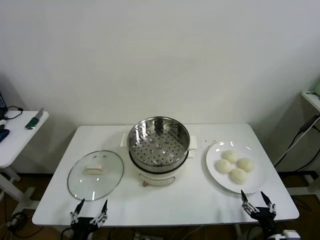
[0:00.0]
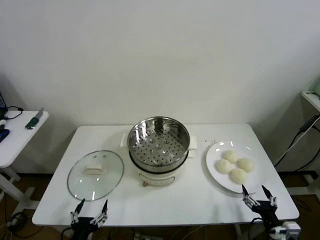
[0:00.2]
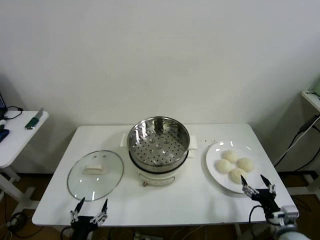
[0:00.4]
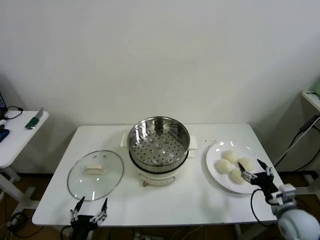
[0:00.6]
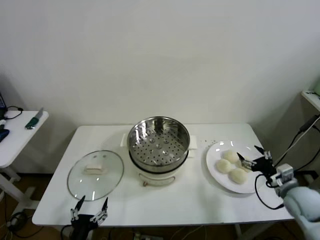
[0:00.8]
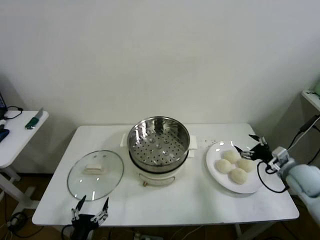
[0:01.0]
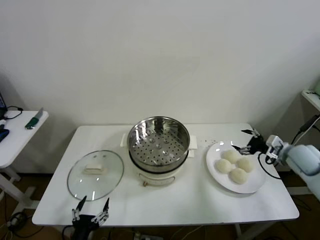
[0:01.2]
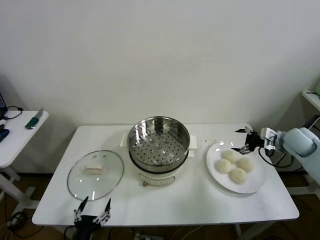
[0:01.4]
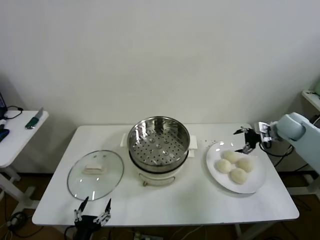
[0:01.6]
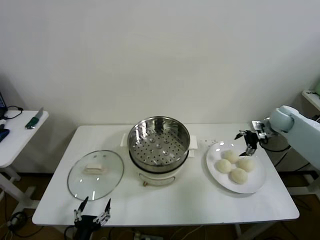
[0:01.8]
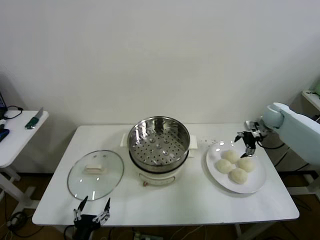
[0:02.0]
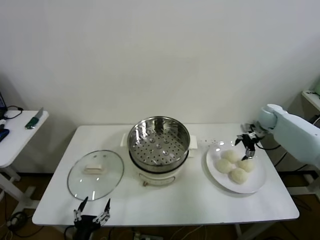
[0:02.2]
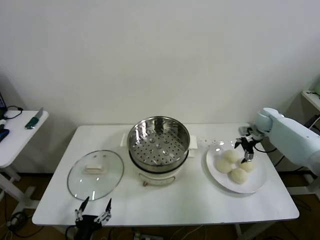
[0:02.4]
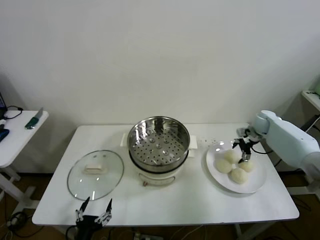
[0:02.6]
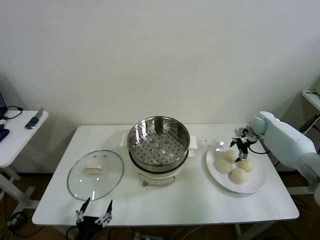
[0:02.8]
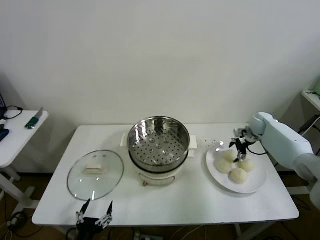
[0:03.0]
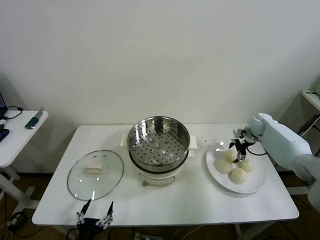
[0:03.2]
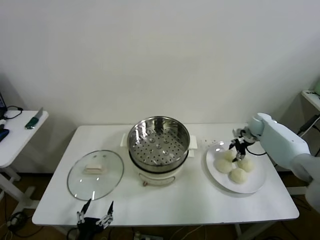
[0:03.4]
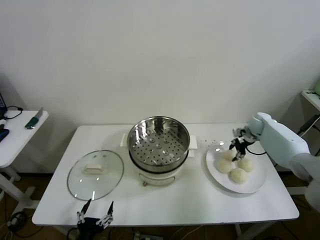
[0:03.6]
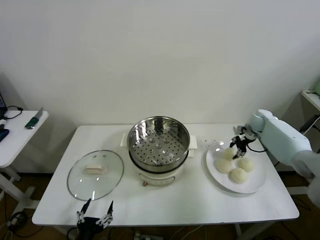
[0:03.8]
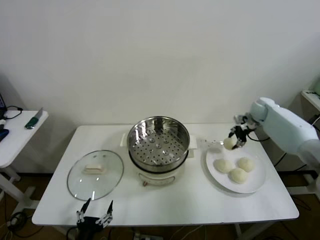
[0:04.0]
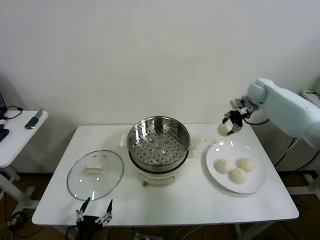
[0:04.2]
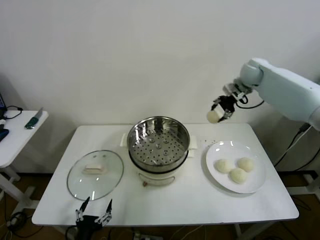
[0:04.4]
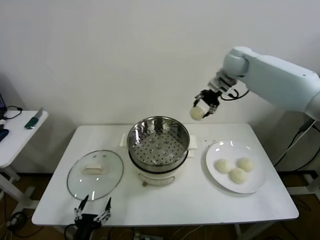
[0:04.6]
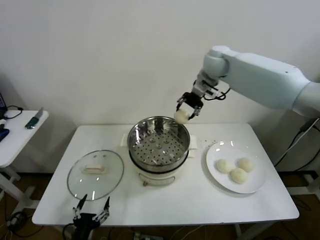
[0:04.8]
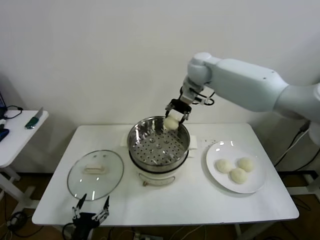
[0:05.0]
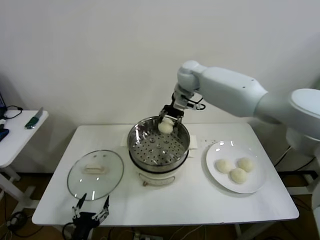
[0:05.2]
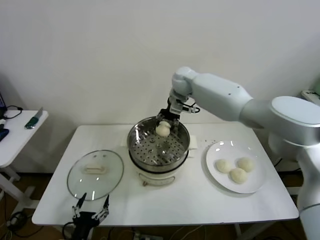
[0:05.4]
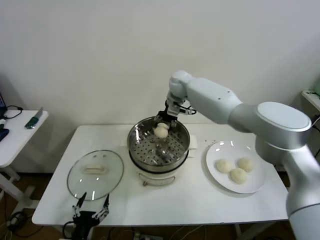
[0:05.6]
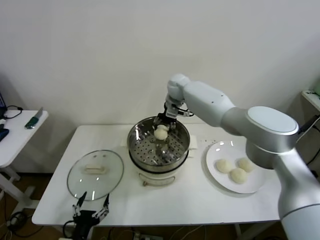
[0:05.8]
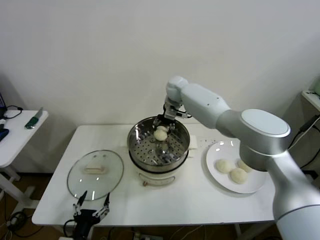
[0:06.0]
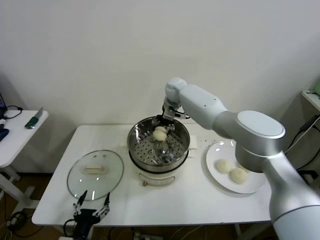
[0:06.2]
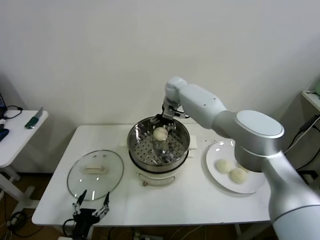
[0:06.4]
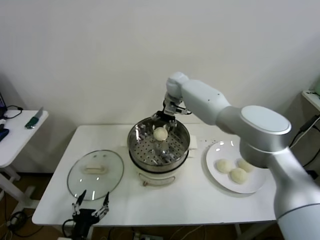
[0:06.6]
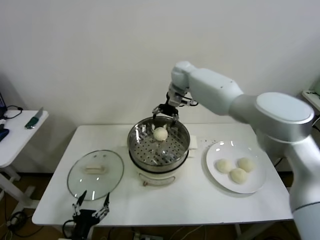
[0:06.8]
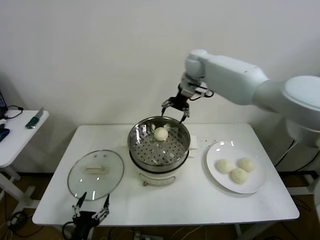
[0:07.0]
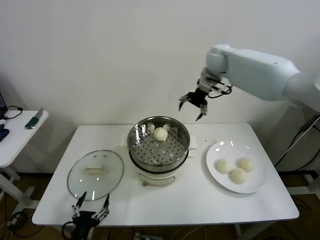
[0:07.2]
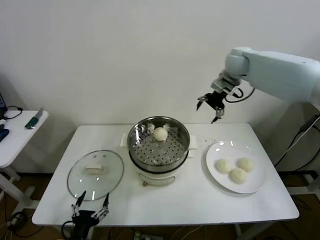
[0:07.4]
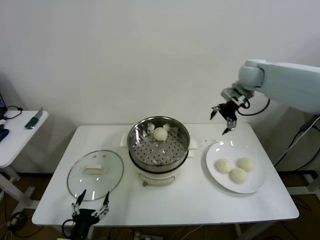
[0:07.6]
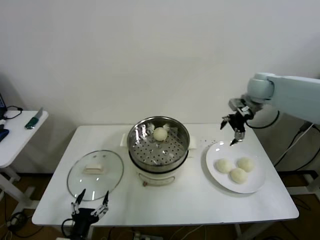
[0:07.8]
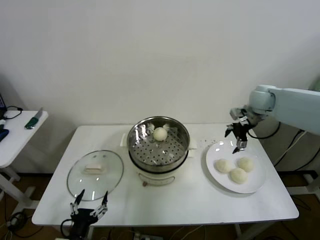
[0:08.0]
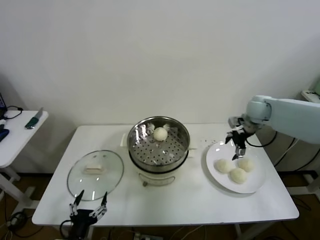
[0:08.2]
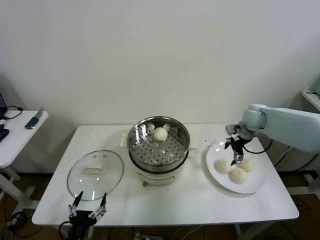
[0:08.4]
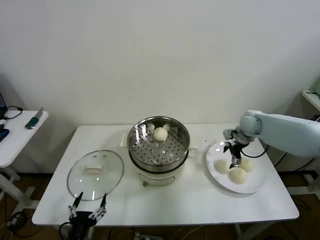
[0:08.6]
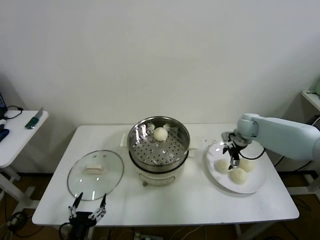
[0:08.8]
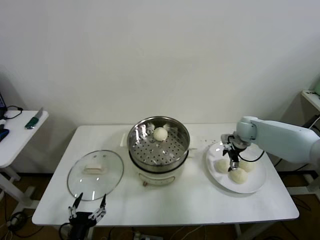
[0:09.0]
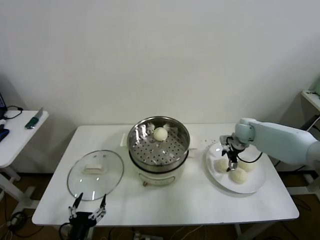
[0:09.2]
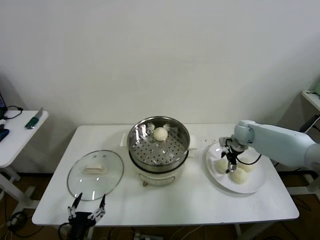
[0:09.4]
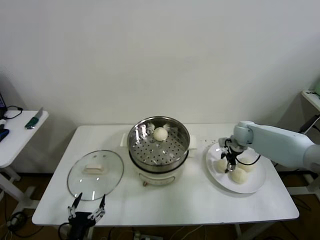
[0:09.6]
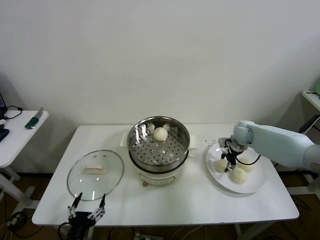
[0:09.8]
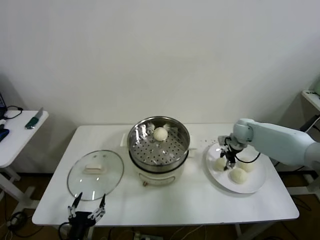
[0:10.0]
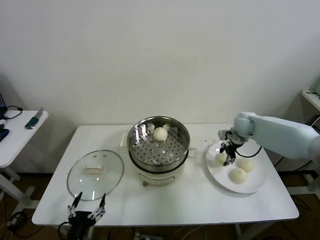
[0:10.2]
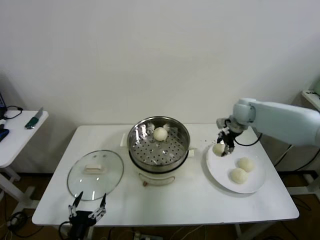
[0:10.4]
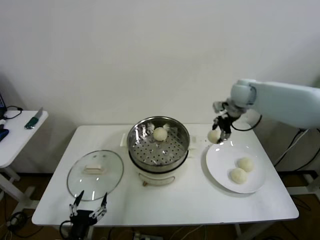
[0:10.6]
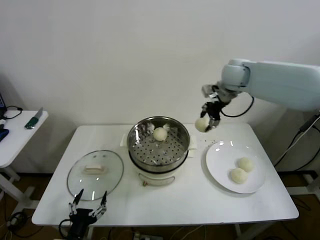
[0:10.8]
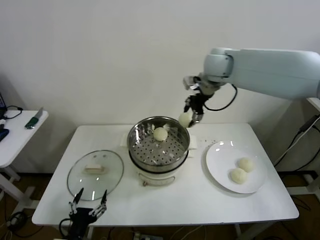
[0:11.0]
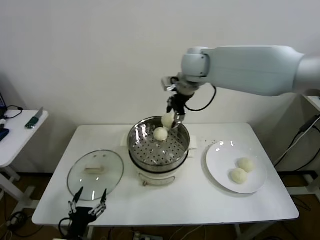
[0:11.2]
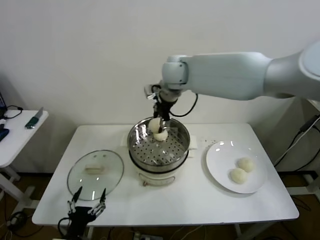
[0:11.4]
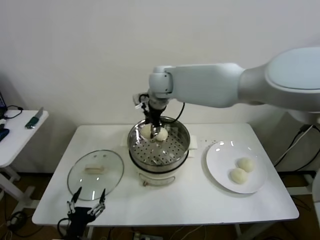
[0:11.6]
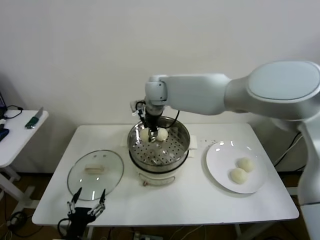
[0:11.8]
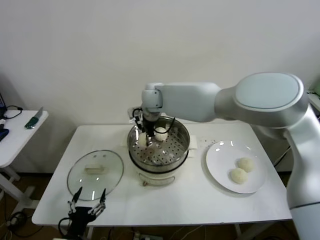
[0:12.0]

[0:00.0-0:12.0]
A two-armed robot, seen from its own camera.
Step, 0:00.0 to 0:03.2: Grasp the baozi in the plate with right gripper.
Step, 0:03.6 to 0:06.2: Place the baozi on the steamer with right gripper.
Step, 0:06.4 to 0:09.4: Grasp the baozi in the plate with right gripper.
0:01.6 to 0:03.0: The right gripper travels forward and downward by roughly 10 cm.
0:03.0 to 0:04.4: The right gripper heads upward and to the left, covering some 25 cm, and closes.
0:04.4 to 0:06.0: The right gripper heads to the left, covering roughly 25 cm.
0:06.0 to 0:07.6: The right gripper moves to the right, about 25 cm, and opens.
0:07.6 to 0:09.0: The right gripper heads downward, covering approximately 20 cm.
0:09.0 to 0:10.4: The right gripper goes about 10 cm upward, and closes up.
0:10.4 to 0:12.0: The right gripper heads to the left, covering about 35 cm.

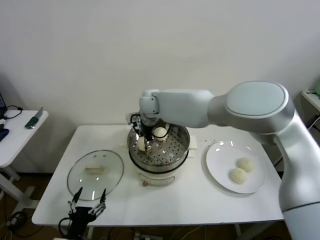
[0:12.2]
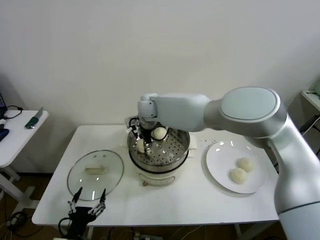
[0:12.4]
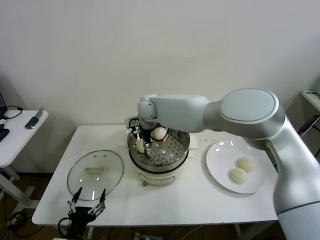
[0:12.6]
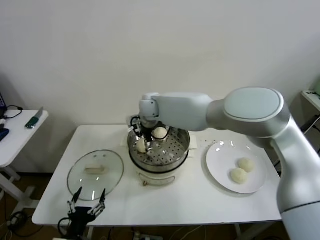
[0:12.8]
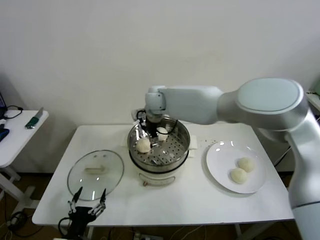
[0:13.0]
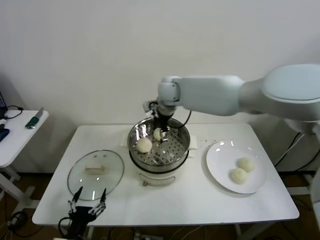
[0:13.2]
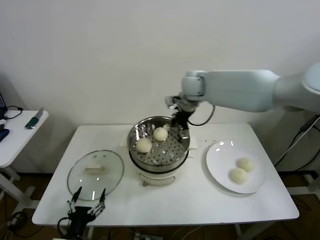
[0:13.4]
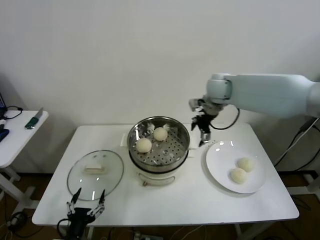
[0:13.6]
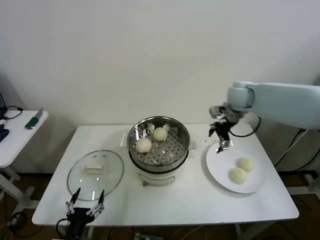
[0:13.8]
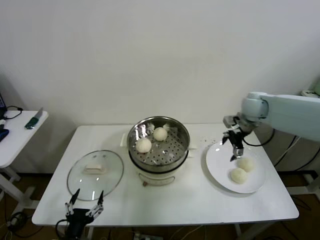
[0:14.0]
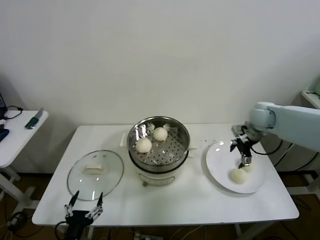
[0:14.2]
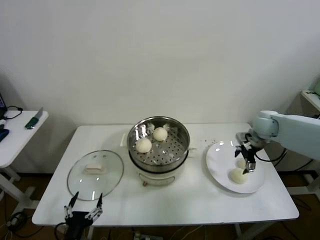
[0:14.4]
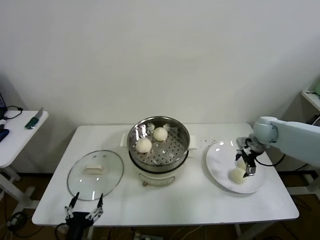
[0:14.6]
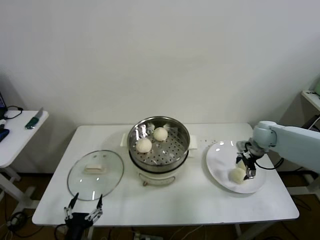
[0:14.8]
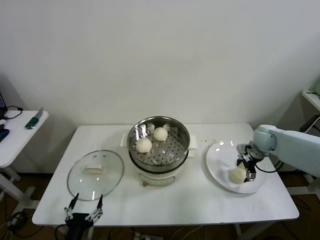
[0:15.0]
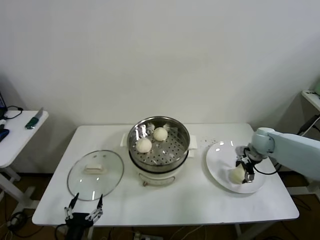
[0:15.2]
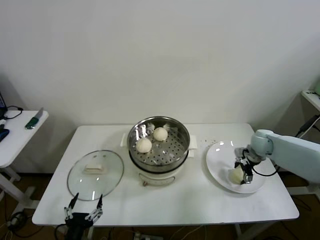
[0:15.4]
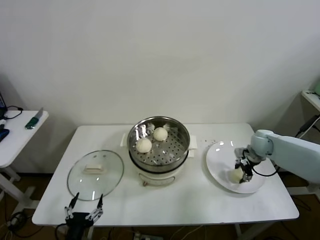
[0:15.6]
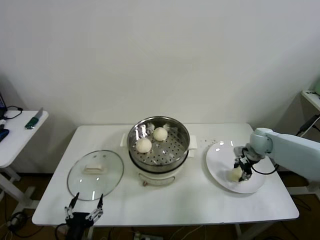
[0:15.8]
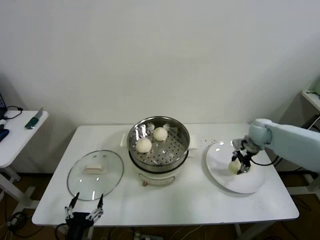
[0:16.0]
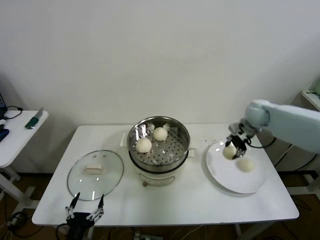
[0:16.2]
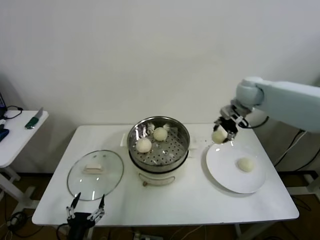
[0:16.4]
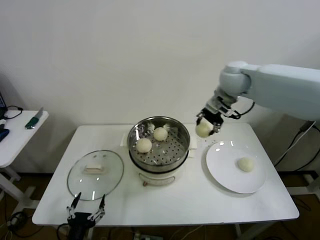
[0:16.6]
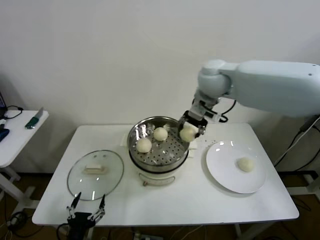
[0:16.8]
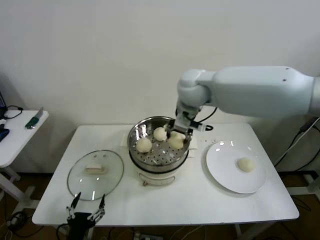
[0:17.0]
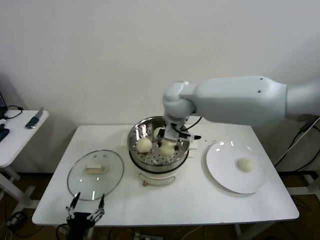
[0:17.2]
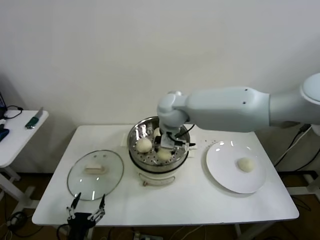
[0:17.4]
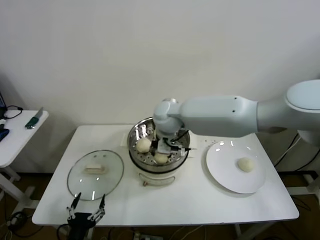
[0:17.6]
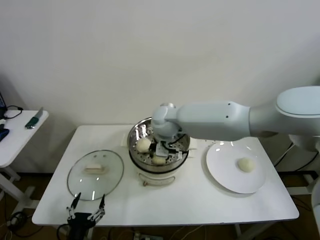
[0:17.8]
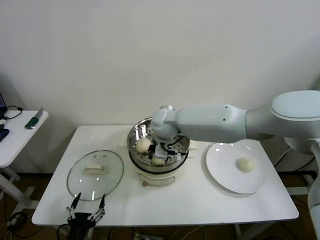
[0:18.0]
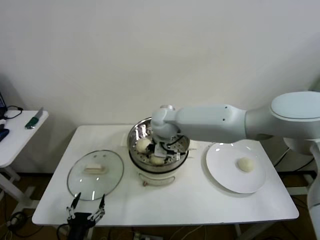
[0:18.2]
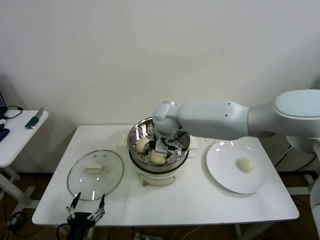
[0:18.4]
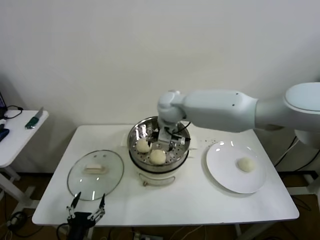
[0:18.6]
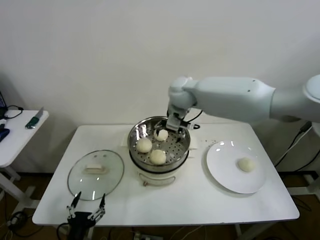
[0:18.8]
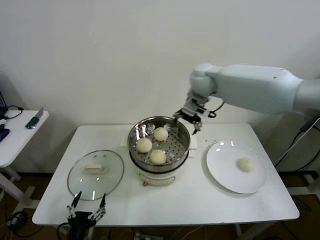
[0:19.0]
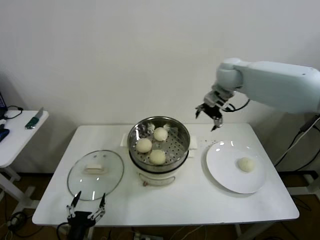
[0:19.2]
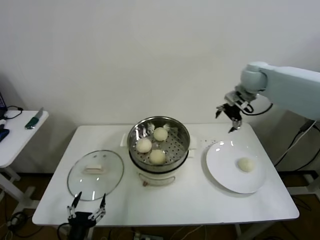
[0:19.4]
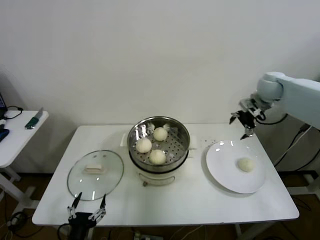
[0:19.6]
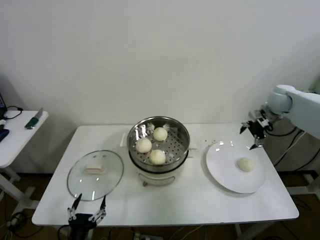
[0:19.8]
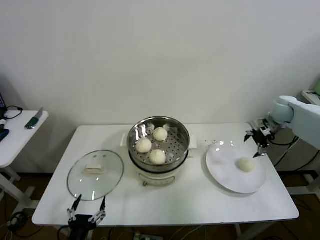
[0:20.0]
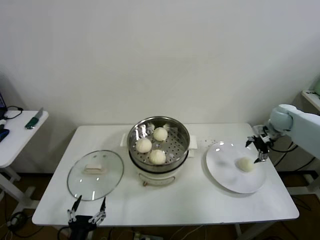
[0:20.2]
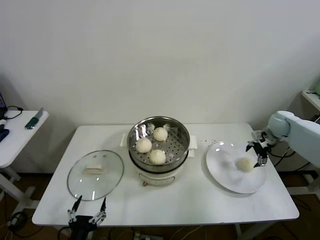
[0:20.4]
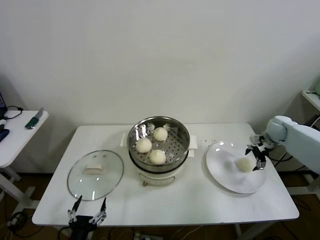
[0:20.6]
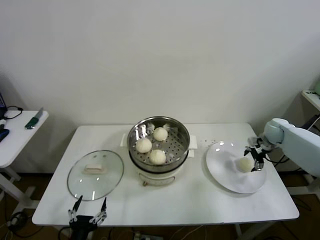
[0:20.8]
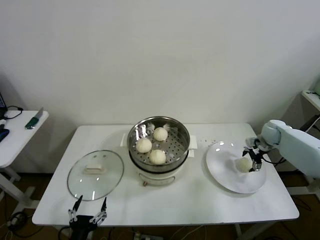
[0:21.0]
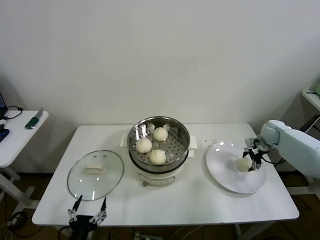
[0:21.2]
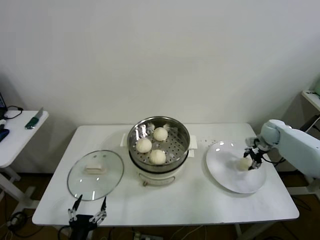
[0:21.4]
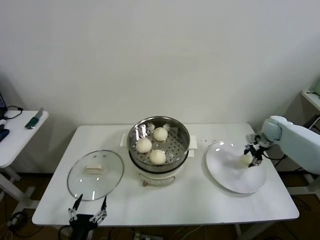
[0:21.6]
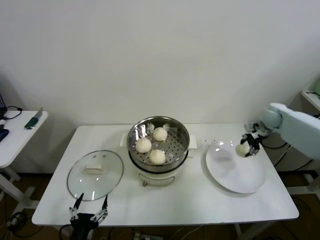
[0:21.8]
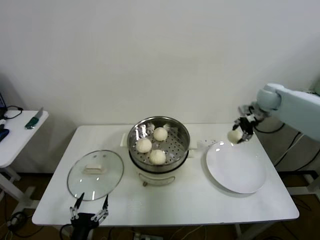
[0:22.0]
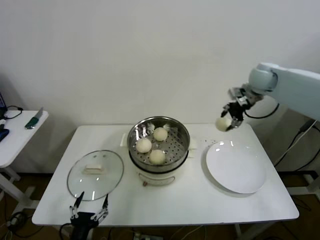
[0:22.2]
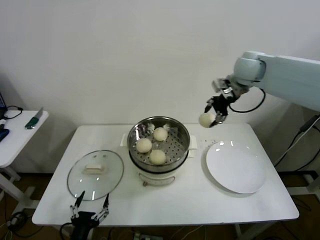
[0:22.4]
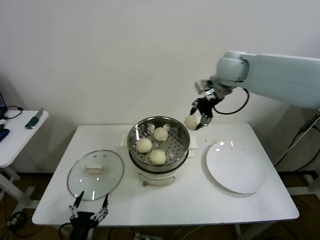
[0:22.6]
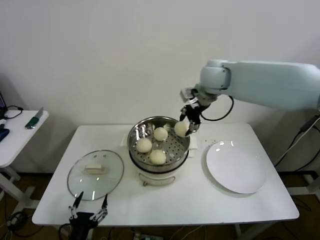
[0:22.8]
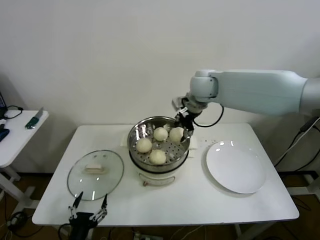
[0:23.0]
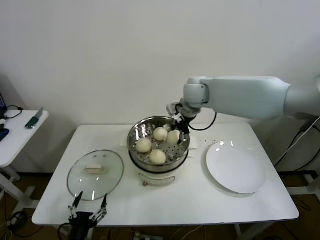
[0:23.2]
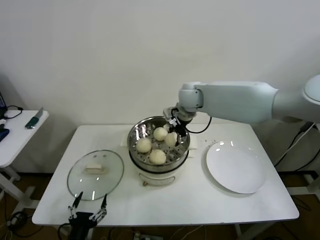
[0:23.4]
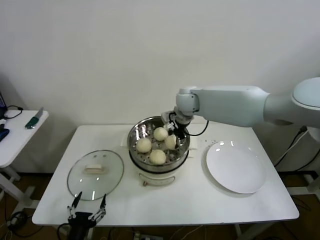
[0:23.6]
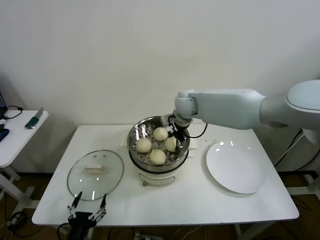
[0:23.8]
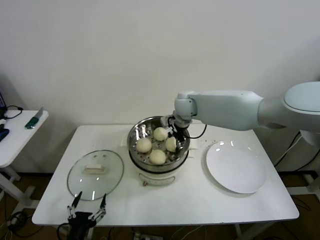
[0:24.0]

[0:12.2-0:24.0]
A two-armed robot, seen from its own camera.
Step, 0:13.0 to 0:15.4: Grasp the baozi in the plate with right gripper.
Step, 0:15.6 to 0:18.2: Place the baozi on the steamer with right gripper.
Step, 0:18.4 to 0:21.2: Grasp the baozi in the plate with right gripper.
Step, 0:21.4 to 0:24.0: Place the baozi on the steamer with right gripper.
0:12.2 to 0:13.6: The right gripper is displaced to the right by roughly 25 cm, and opens up.
0:13.6 to 0:15.2: The right gripper travels downward and to the right by some 30 cm.
0:15.2 to 0:16.6: The right gripper goes some 30 cm upward and to the left, and closes.
0:16.6 to 0:18.2: The right gripper is displaced to the left and downward by roughly 25 cm, and opens its fingers.
0:18.2 to 0:19.6: The right gripper travels to the right by about 35 cm, and opens its fingers.
0:19.6 to 0:21.0: The right gripper moves downward and to the right, some 20 cm.
0:21.0 to 0:22.6: The right gripper moves upward and to the left, roughly 35 cm, and closes up.
0:22.6 to 0:24.0: The right gripper moves downward and to the left, approximately 20 cm.
